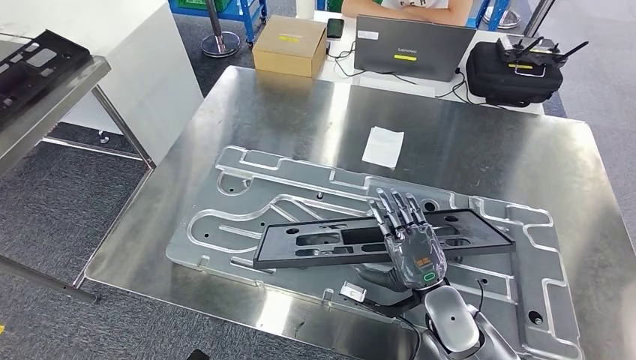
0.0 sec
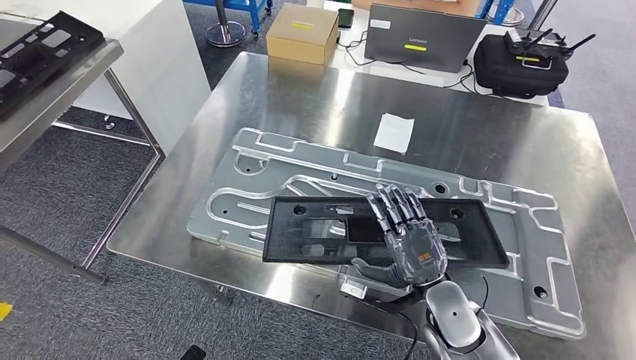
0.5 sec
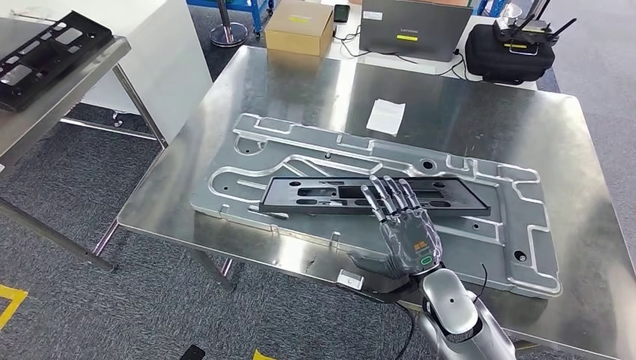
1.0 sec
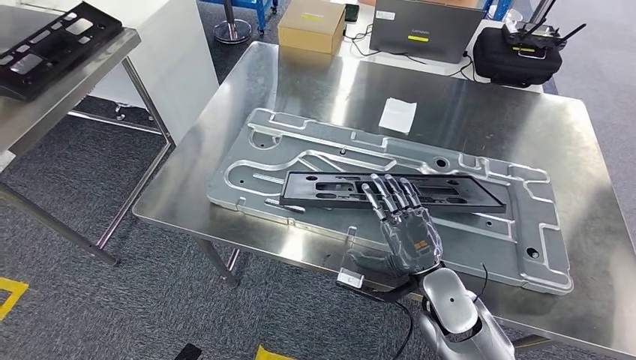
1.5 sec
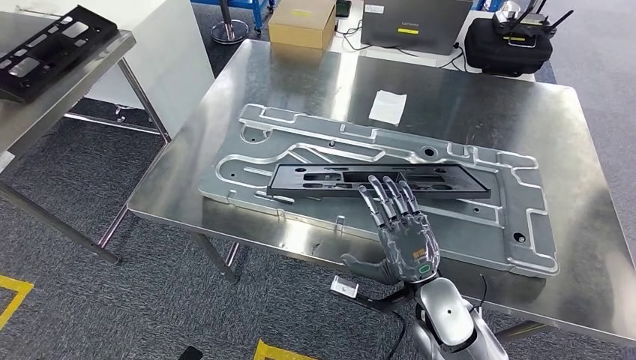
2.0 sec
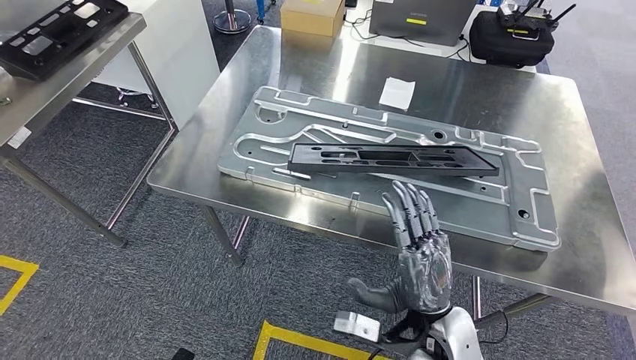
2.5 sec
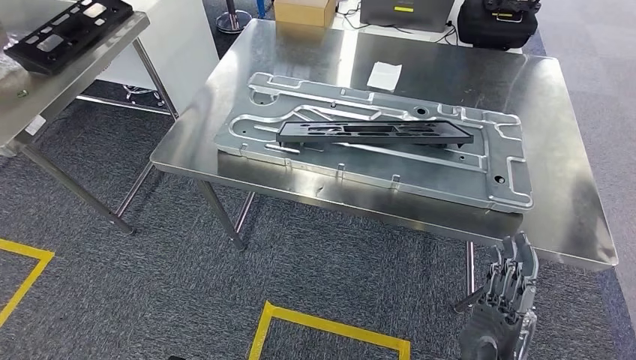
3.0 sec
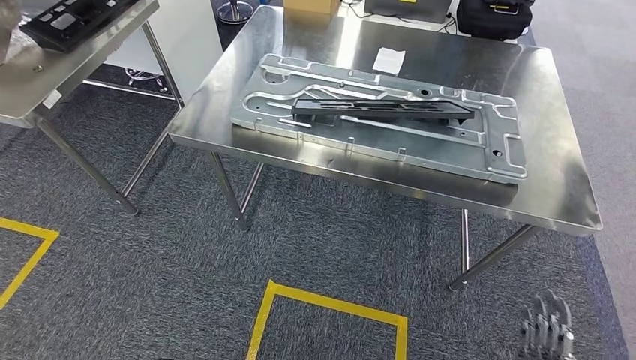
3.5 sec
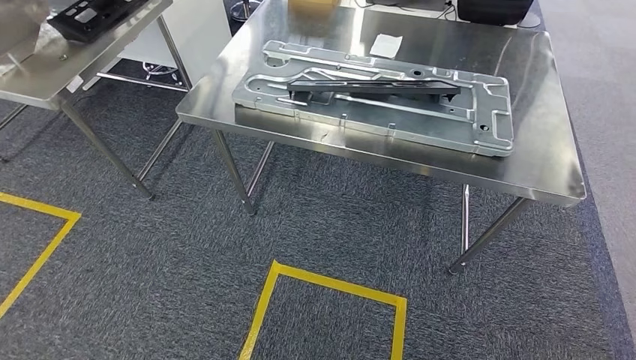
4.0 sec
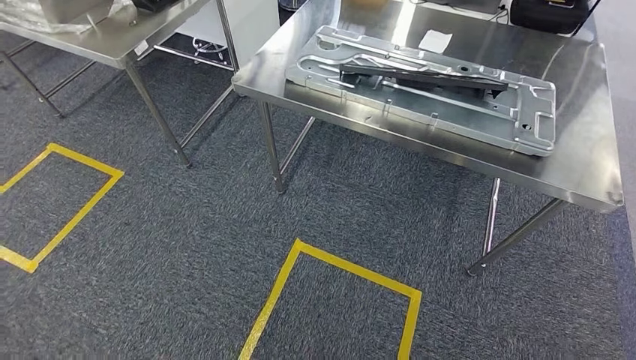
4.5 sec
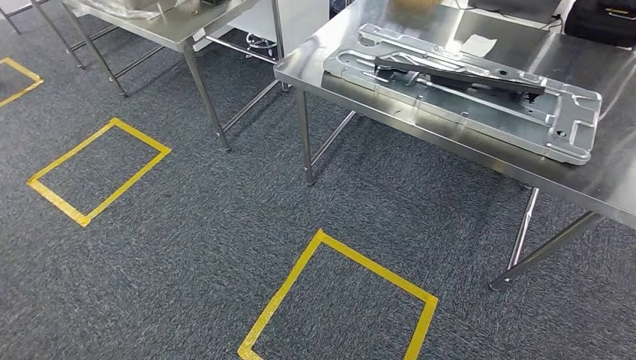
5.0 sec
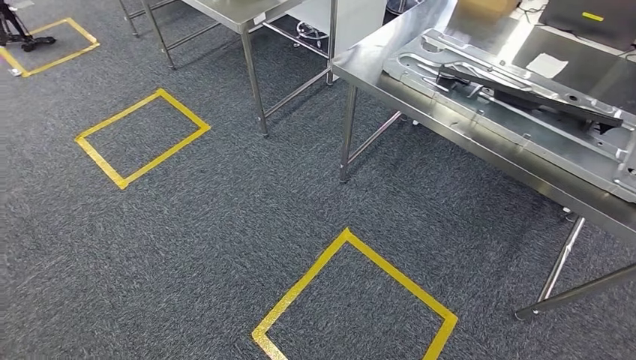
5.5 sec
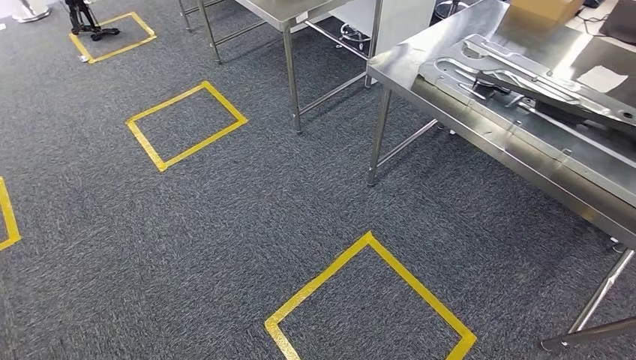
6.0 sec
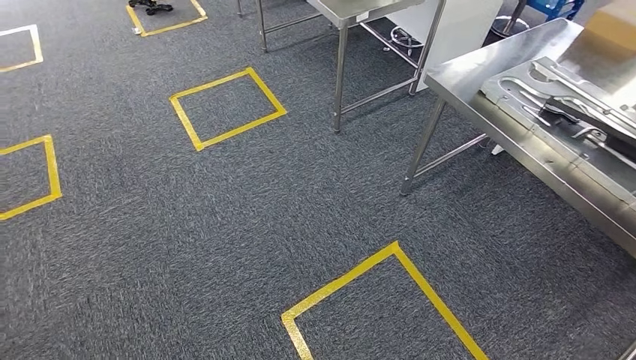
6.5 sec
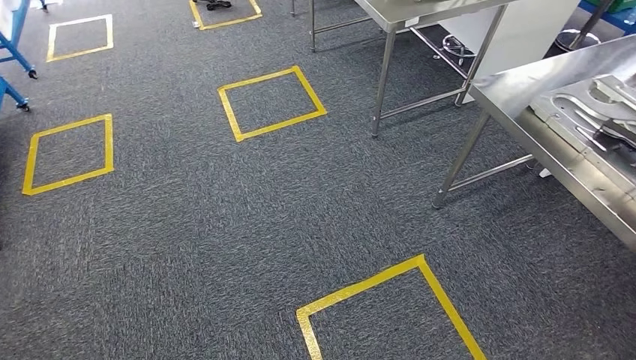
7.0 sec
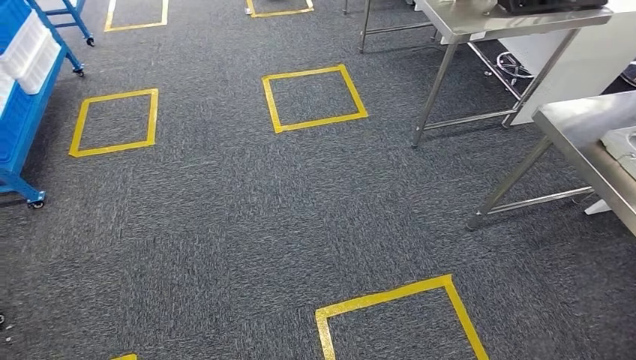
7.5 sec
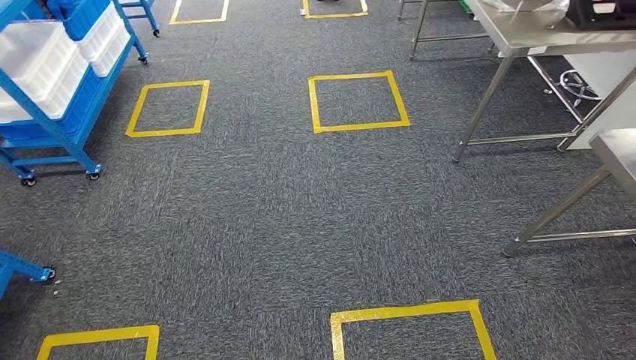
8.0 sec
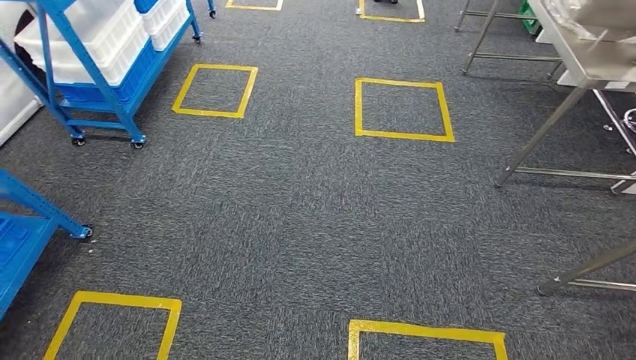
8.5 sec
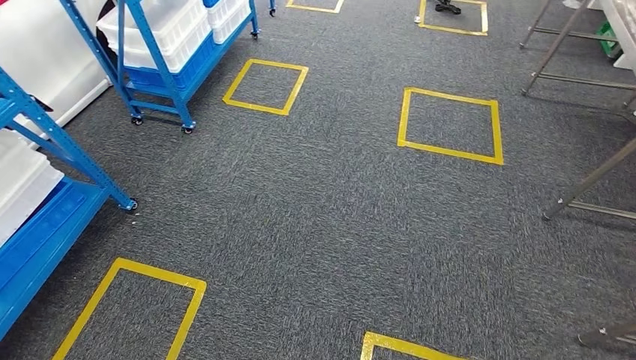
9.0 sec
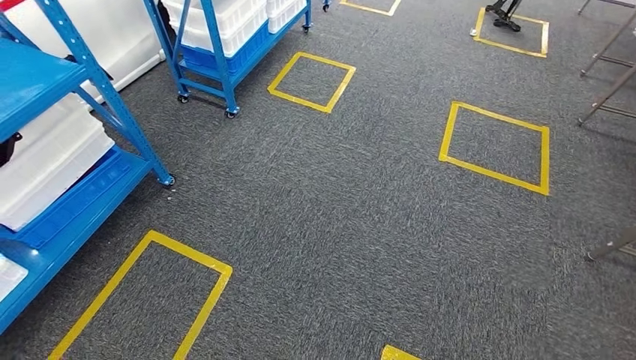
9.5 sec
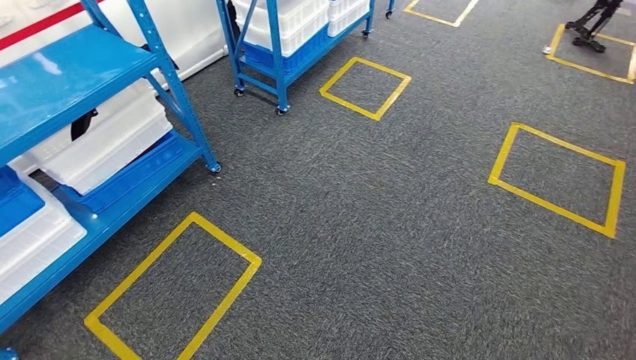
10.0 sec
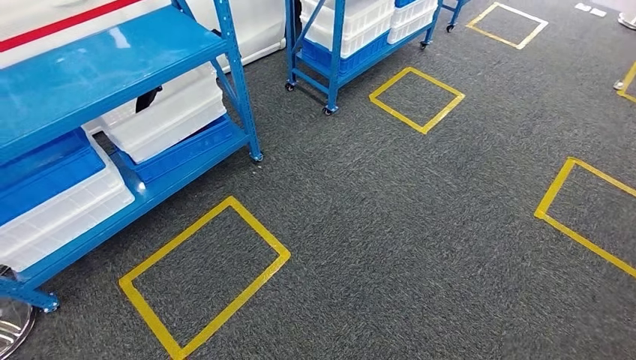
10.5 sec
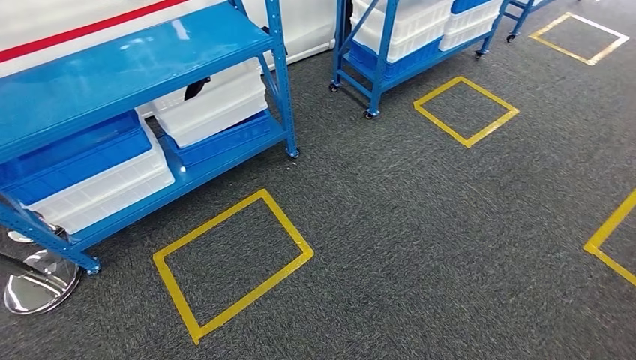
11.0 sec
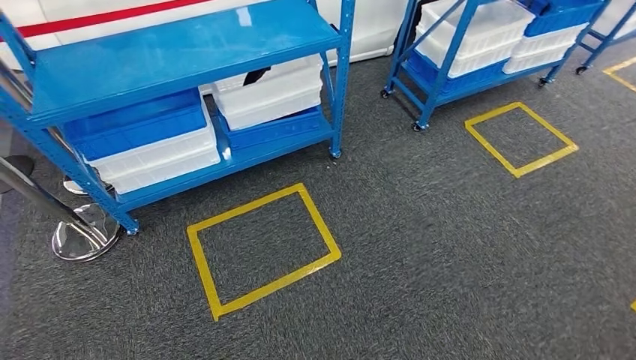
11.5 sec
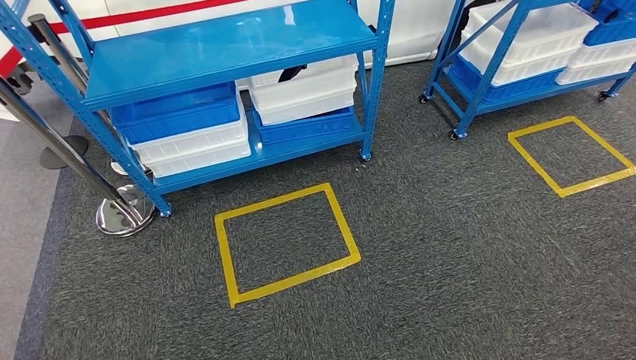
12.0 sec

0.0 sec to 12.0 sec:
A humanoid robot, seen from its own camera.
Step, 0.0 sec to 5.5 sec: Insert the large parts into the corresponding slots on the workbench.

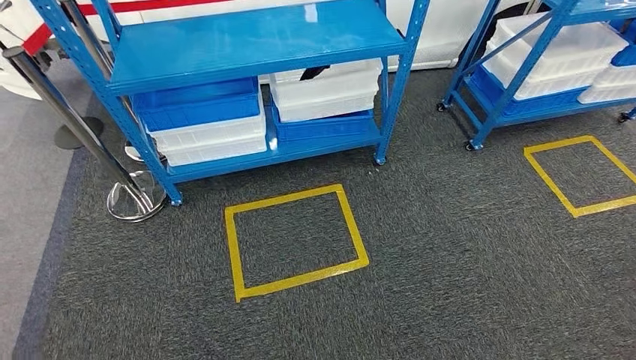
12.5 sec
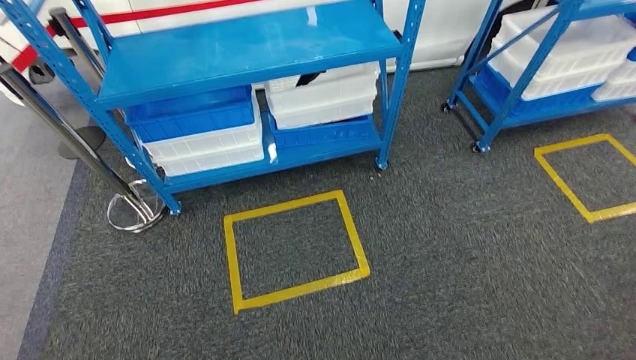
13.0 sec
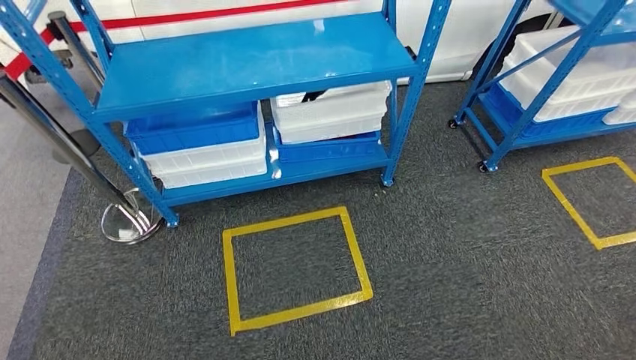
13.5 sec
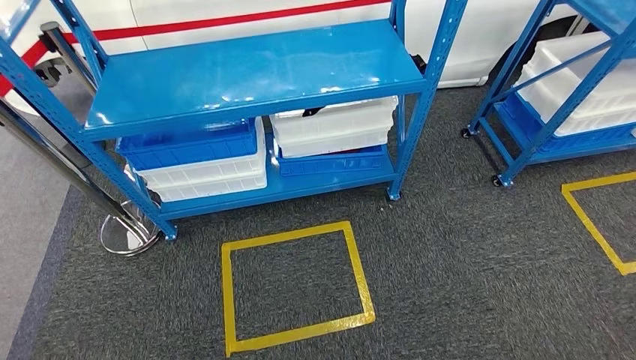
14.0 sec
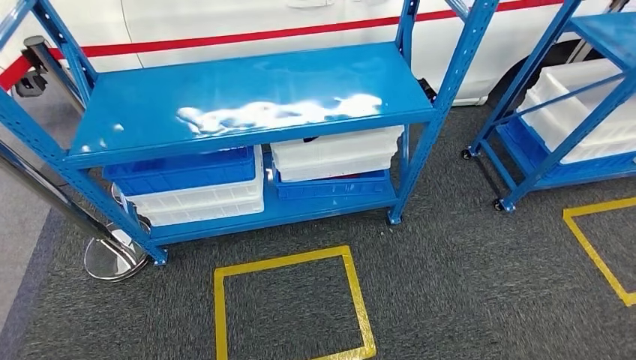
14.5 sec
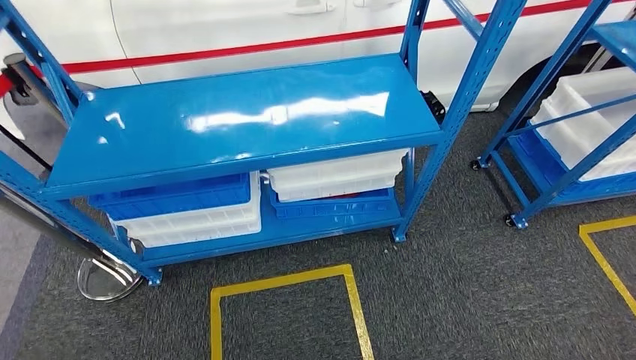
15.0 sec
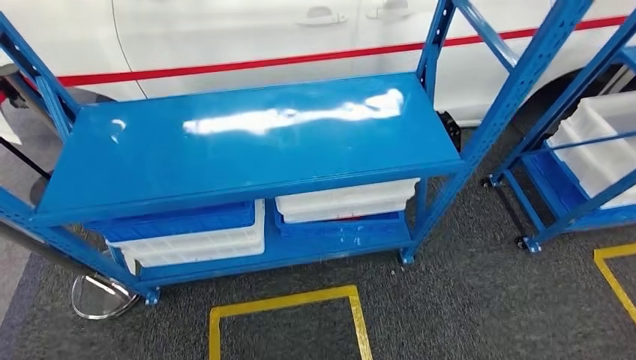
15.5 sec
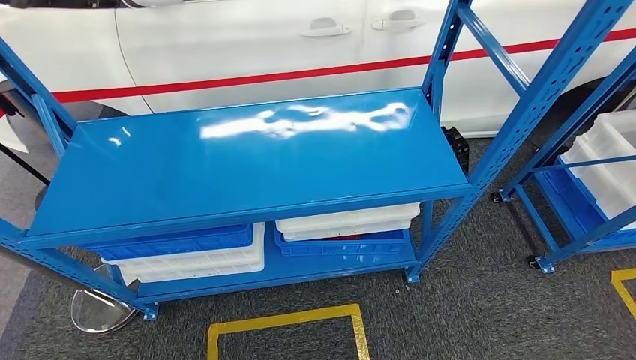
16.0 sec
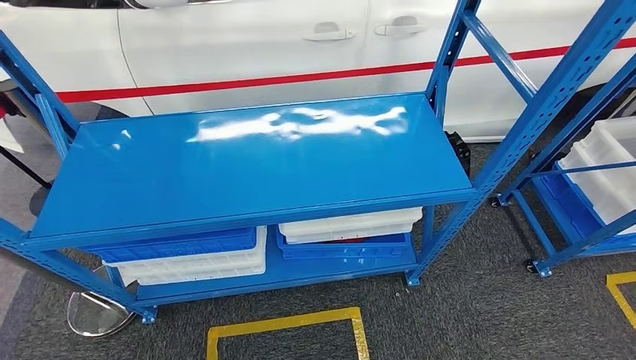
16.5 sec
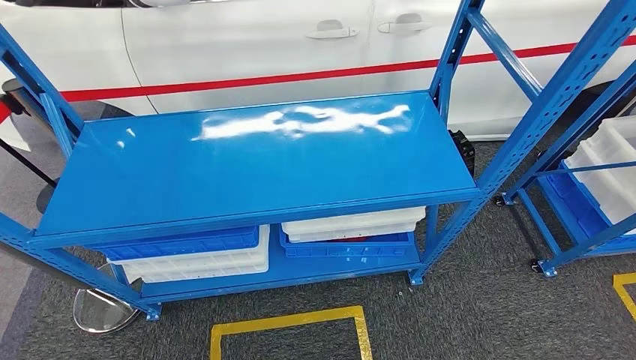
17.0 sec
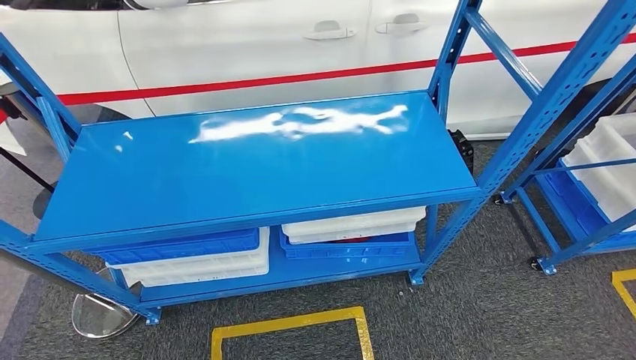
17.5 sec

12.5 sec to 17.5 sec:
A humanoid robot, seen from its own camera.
Step, 12.5 sec to 17.5 sec: Return to the initial position at the shelf.
